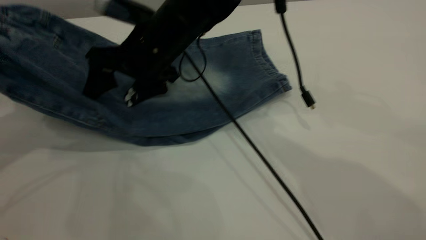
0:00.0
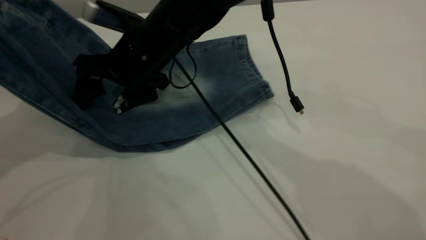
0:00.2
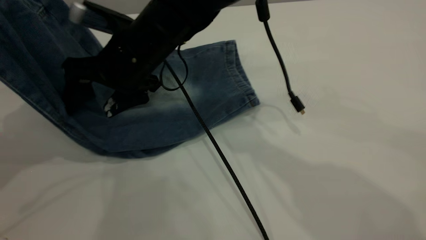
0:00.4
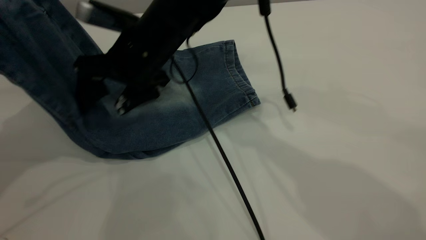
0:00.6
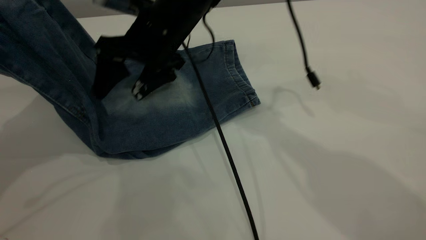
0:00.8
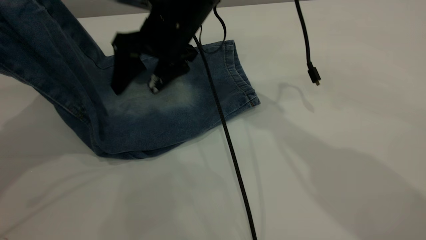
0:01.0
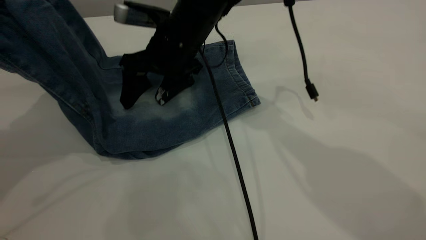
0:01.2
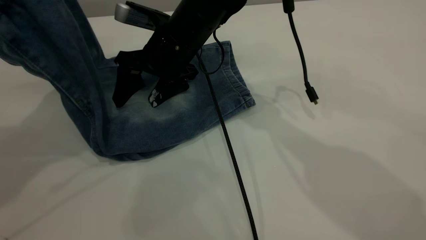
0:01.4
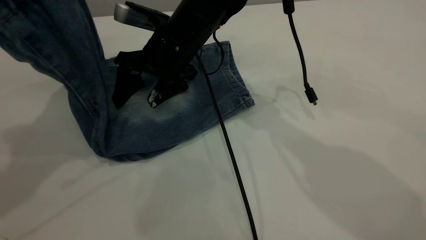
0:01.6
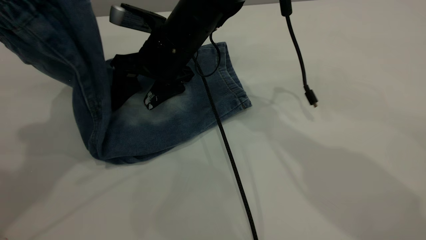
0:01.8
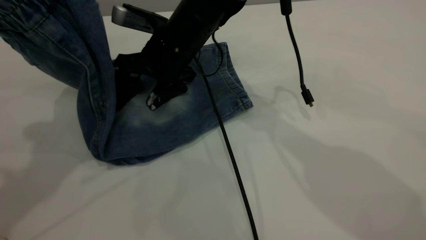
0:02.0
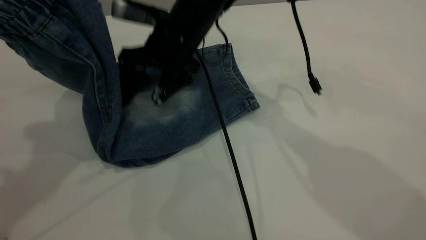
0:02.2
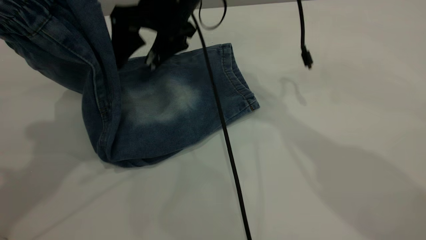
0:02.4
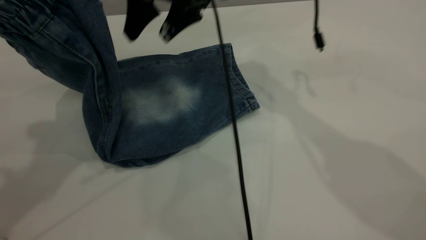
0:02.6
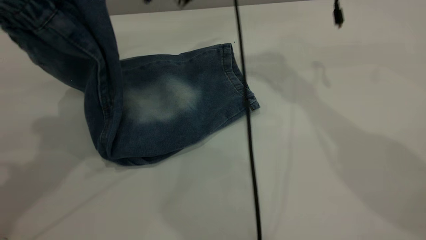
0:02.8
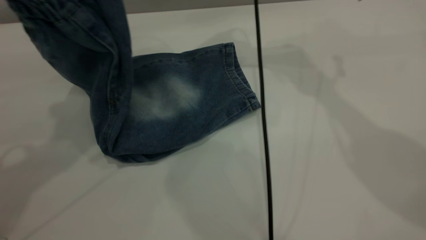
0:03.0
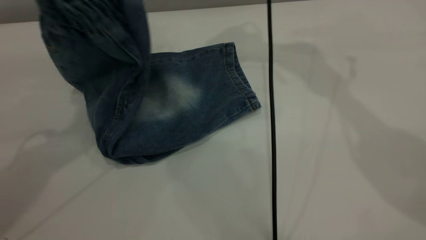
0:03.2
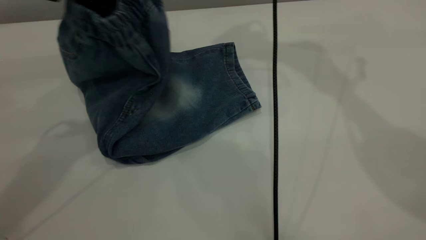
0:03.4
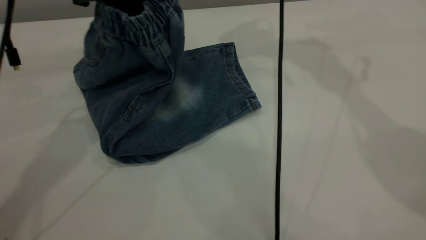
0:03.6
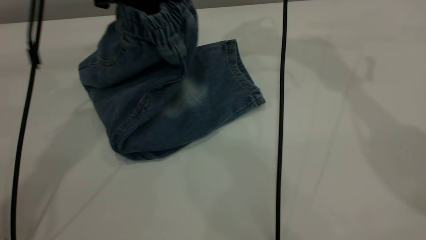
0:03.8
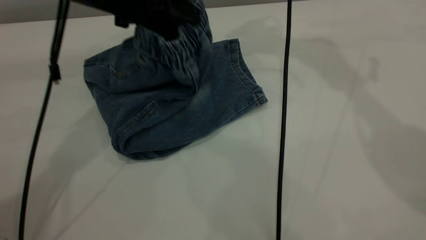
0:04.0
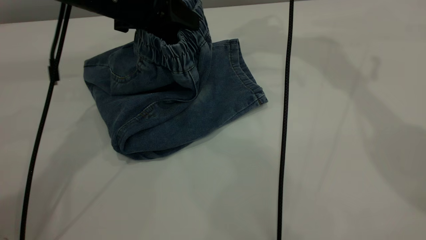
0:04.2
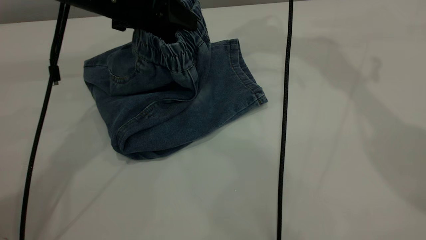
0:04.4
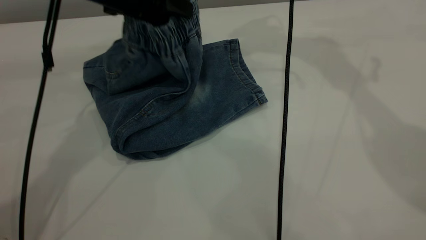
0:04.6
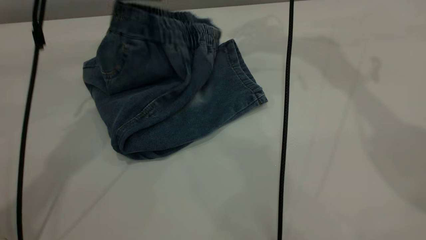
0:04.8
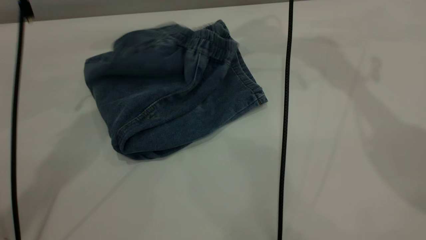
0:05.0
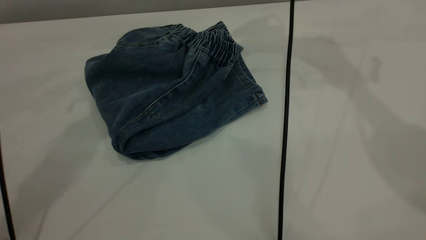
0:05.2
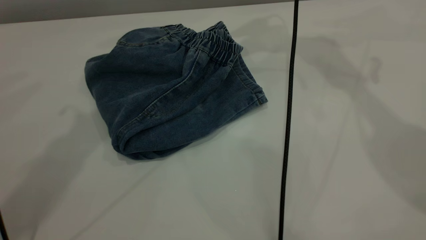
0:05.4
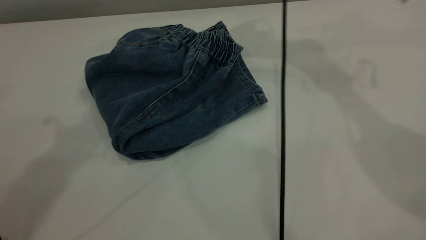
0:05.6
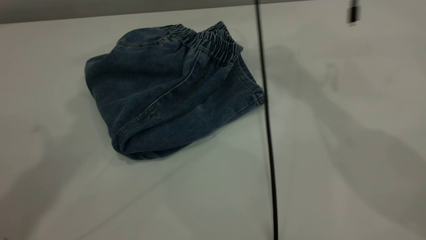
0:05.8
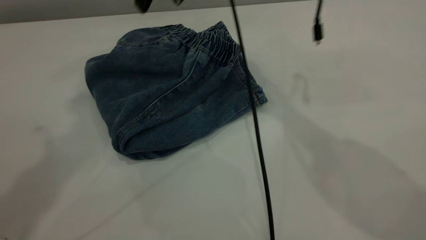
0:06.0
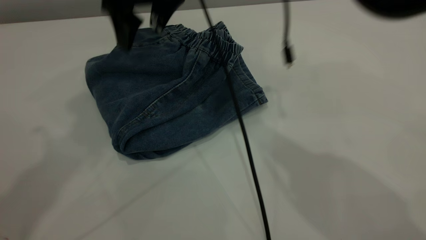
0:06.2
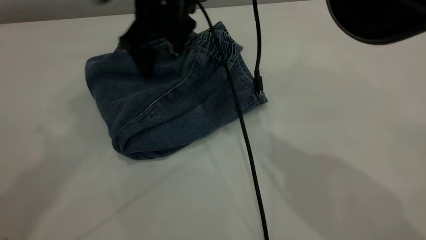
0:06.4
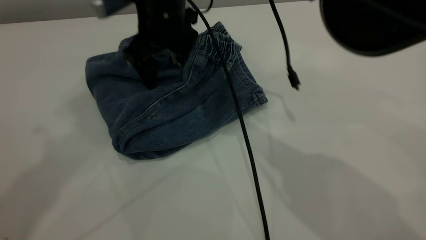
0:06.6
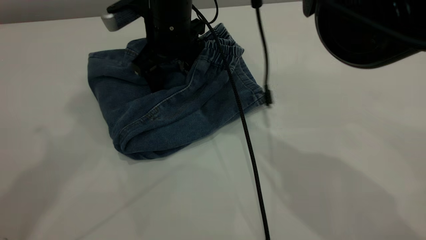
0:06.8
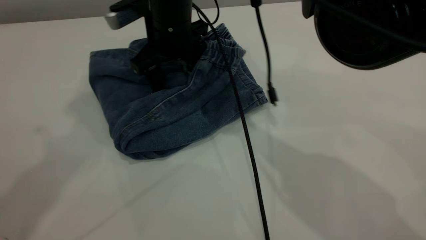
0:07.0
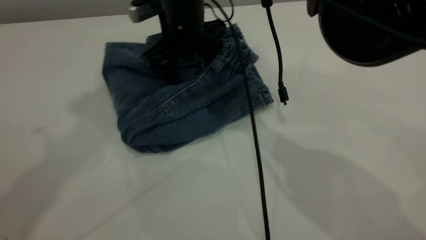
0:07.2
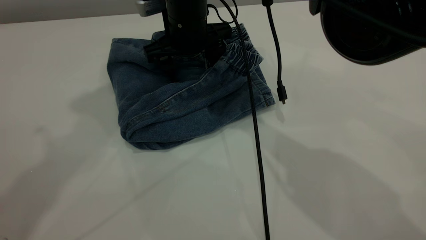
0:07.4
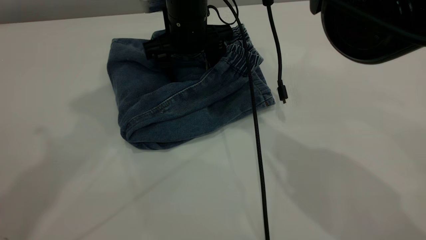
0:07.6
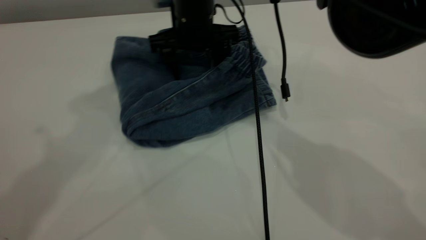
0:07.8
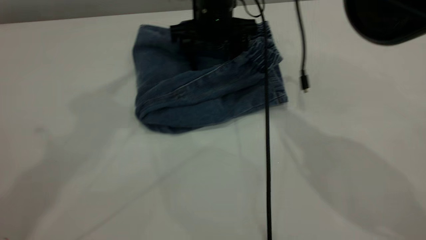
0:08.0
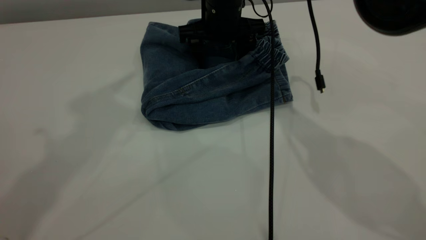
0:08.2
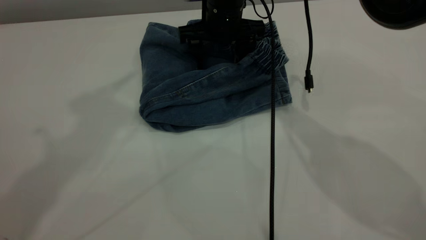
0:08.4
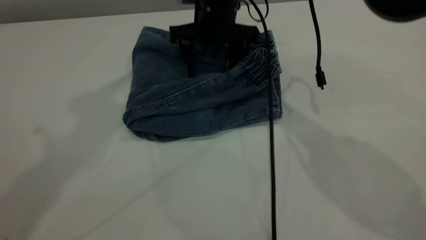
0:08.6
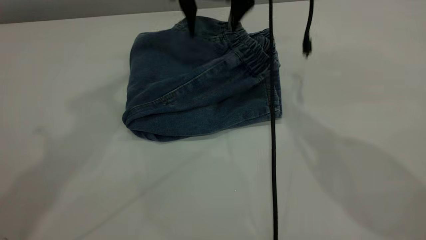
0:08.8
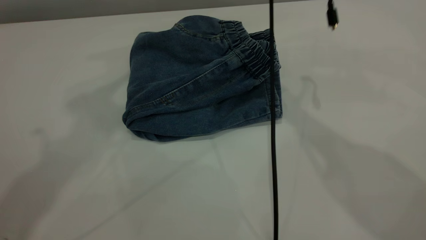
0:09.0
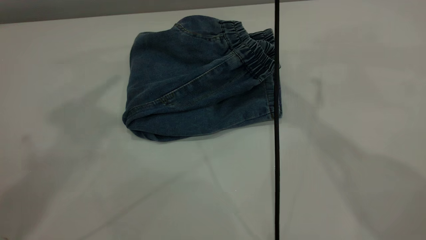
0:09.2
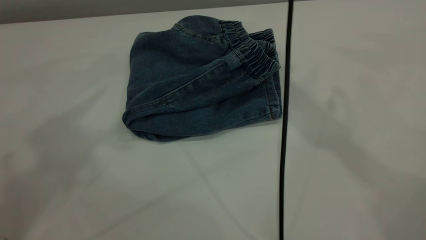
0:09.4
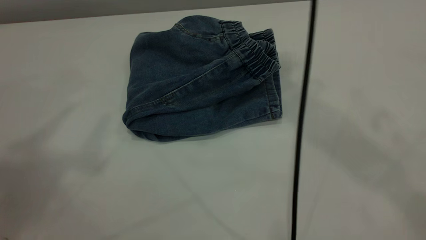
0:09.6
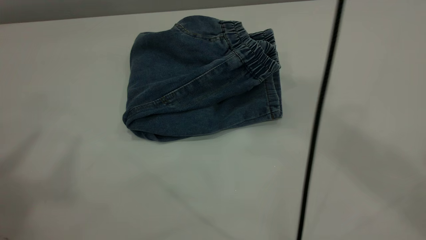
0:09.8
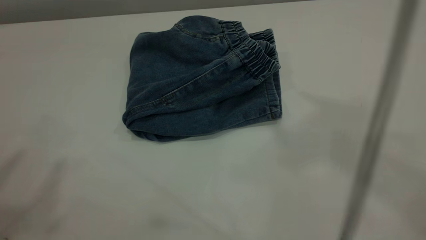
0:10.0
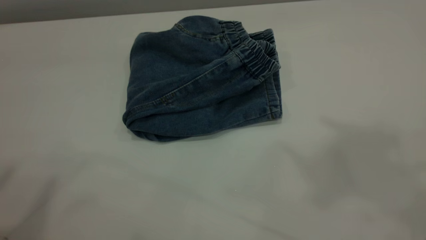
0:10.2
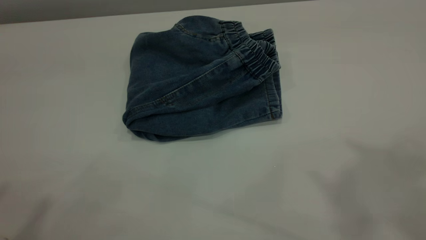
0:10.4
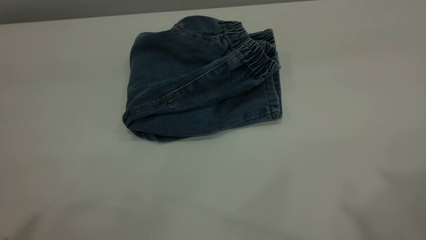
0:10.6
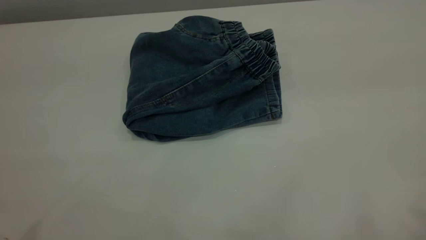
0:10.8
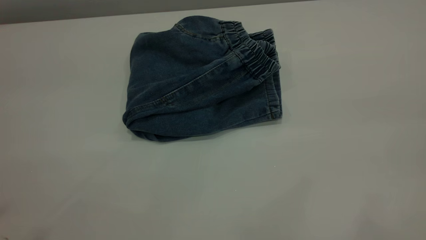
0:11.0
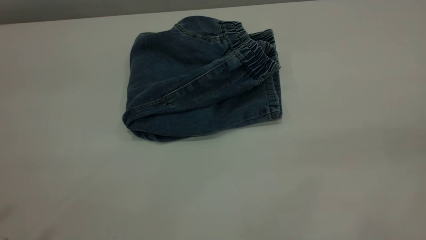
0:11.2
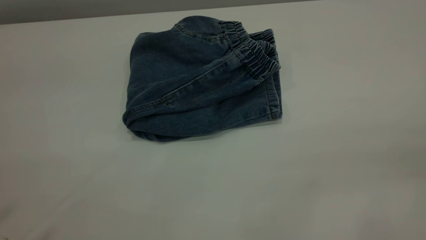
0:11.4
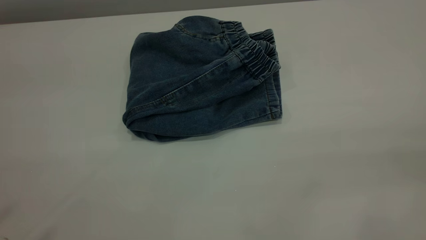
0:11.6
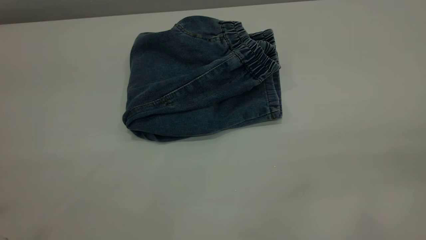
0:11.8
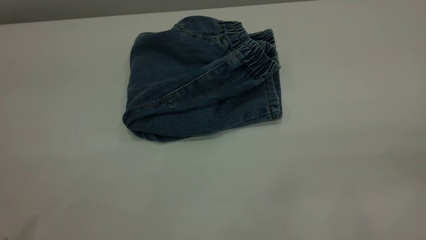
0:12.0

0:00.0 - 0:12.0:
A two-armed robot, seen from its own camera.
Step, 0:00.0 - 0:05.4: Fold the pants from left to right.
0:00.0 - 0:01.6: The left gripper moves to the right, some 10 cm.
0:01.6 - 0:03.0: The left gripper moves about 5 cm, while the right gripper goes roughly 25 cm upward, to the right and forward.
0:03.0 - 0:04.4: The right gripper is displaced to the right by about 5 cm, while the left gripper heads downward, to the right and forward, covering about 15 cm.
0:04.4 - 0:06.0: The left gripper shifts roughly 25 cm upward, and opens its fingers, while the right gripper moves to the left, downward and backward, about 15 cm.
0:06.0 - 0:07.6: The right gripper is displaced downward by roughly 10 cm.
0:07.6 - 0:09.0: The right gripper goes approximately 15 cm upward.
0:09.0 - 0:10.4: The right gripper travels backward, upward and to the right by approximately 40 cm; the left gripper travels backward and to the left by about 20 cm.

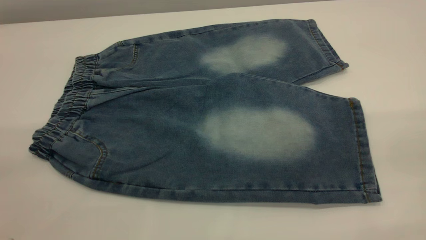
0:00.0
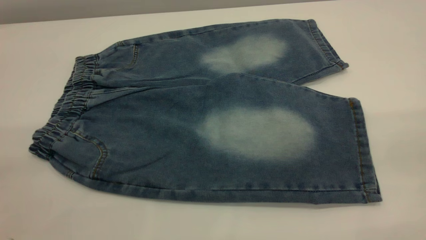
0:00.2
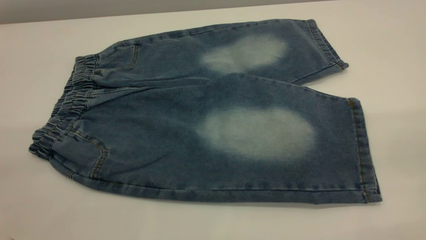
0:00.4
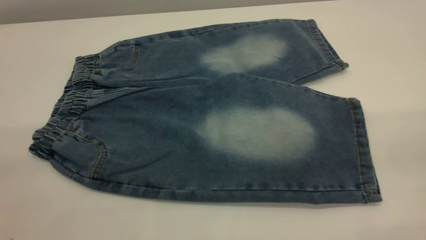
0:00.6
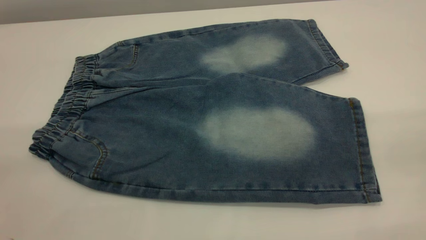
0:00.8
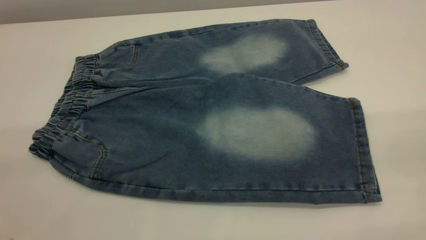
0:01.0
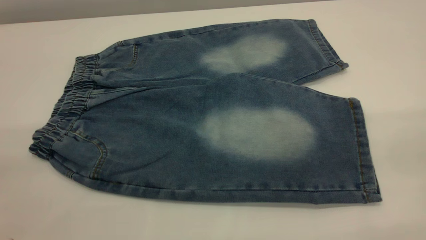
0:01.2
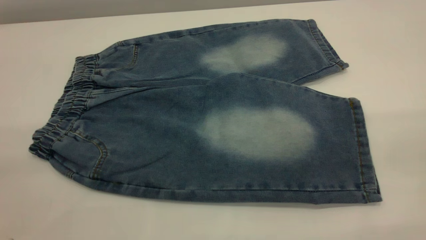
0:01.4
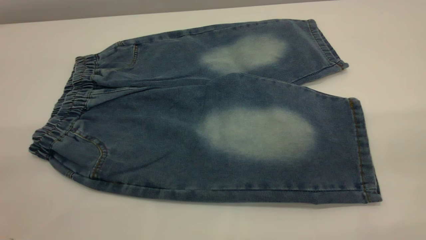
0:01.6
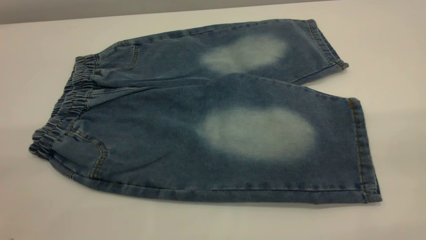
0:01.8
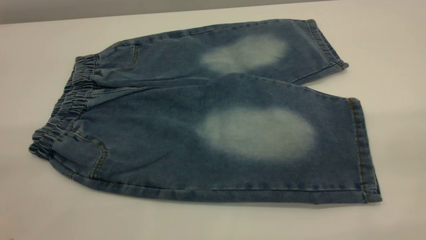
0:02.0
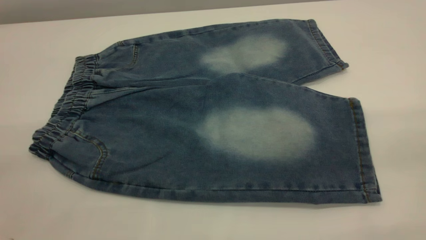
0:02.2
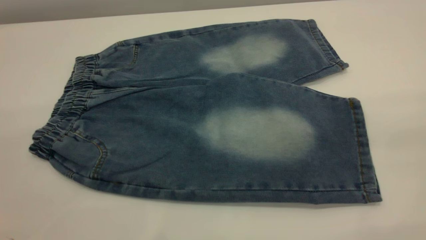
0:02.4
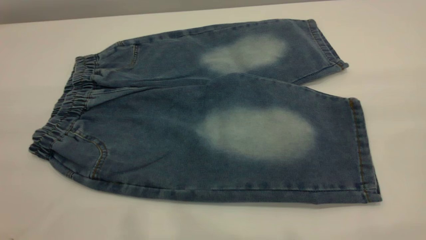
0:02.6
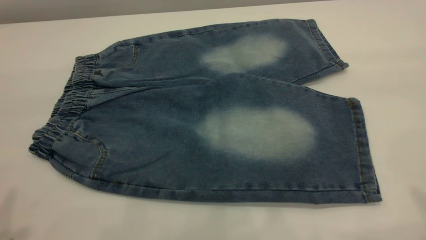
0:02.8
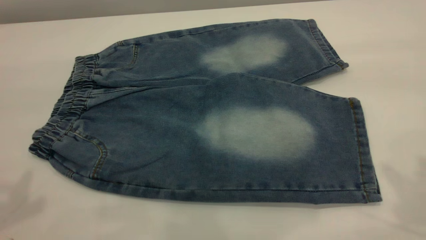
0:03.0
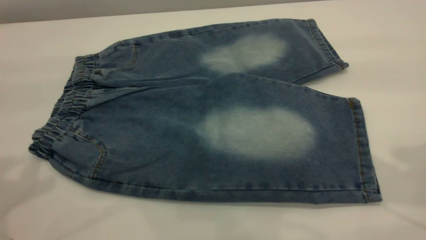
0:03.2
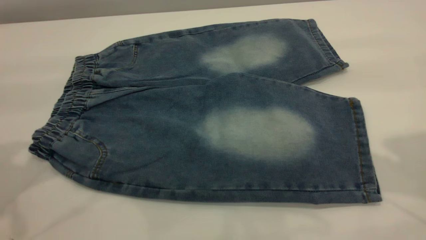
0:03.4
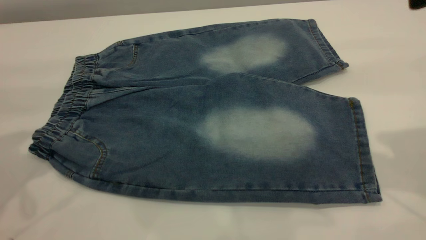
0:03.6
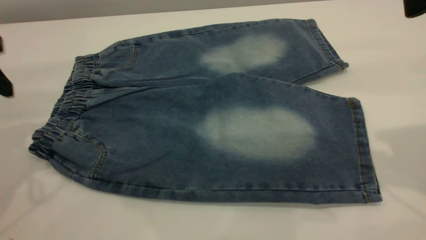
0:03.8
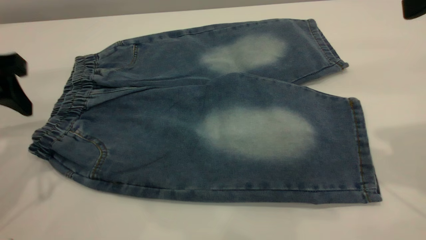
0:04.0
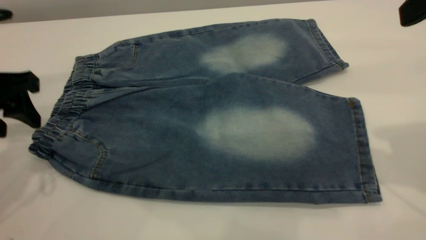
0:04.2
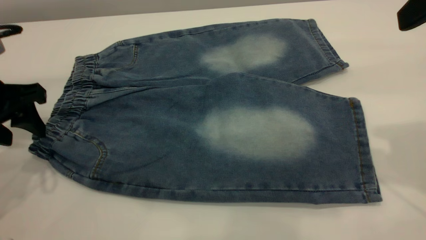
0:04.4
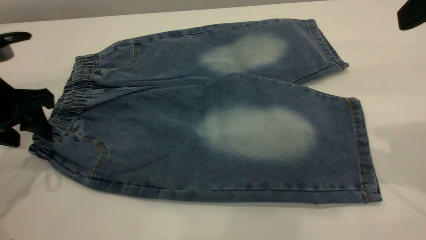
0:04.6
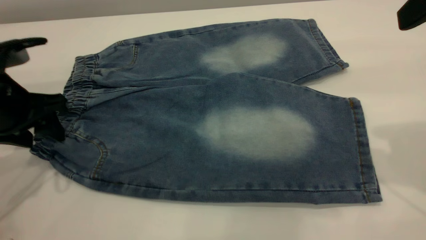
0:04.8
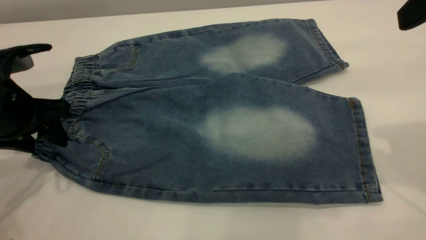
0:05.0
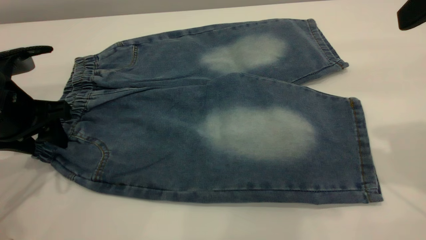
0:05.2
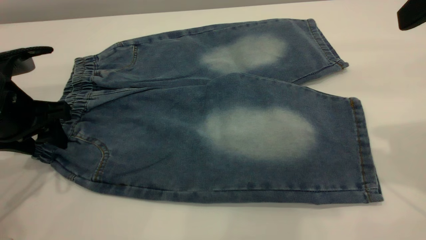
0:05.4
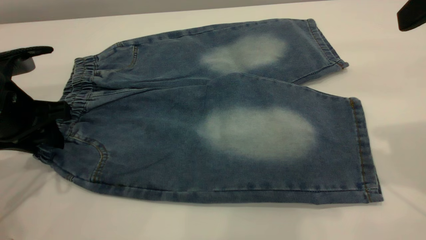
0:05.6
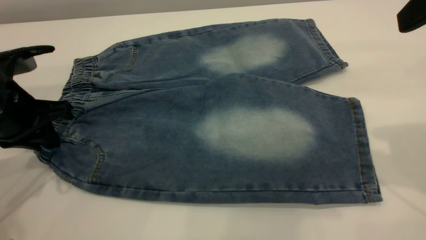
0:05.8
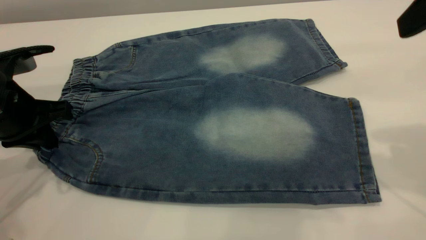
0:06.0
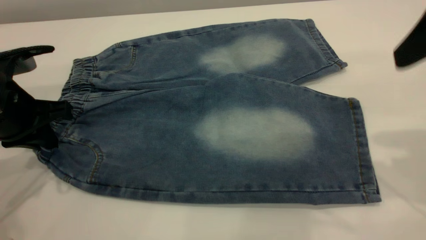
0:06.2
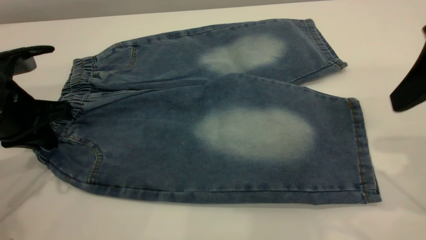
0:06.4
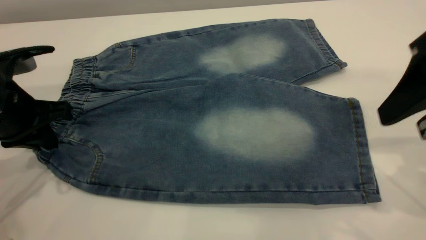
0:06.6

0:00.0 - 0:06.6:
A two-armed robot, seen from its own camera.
0:00.0 - 0:01.6: Both grippers stay put.
0:03.2 - 0:05.0: The right gripper shifts by some 5 cm; the left gripper goes some 20 cm downward.
0:05.0 - 0:06.6: The left gripper closes. Meanwhile the right gripper travels downward by approximately 5 cm.
